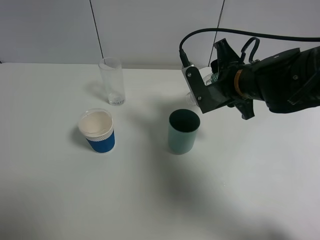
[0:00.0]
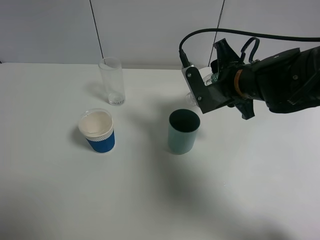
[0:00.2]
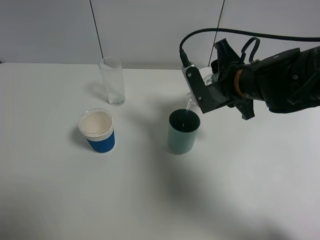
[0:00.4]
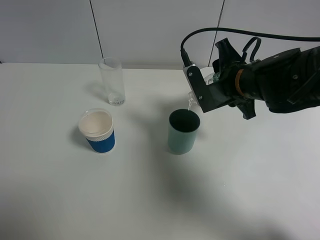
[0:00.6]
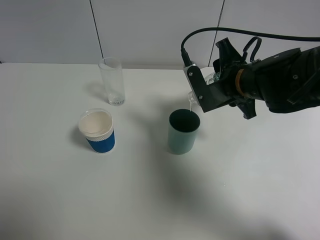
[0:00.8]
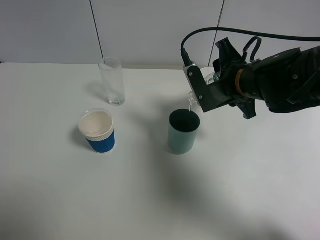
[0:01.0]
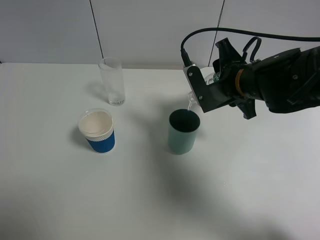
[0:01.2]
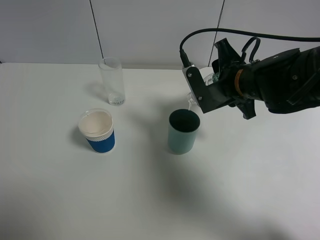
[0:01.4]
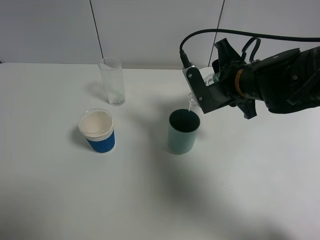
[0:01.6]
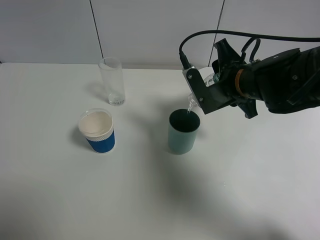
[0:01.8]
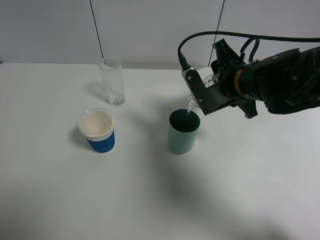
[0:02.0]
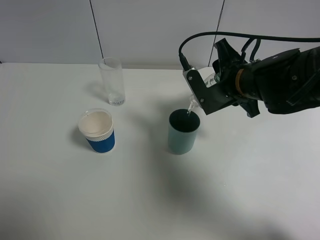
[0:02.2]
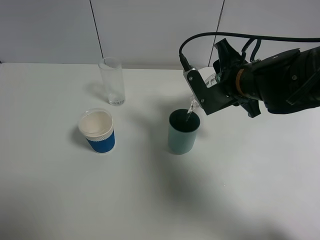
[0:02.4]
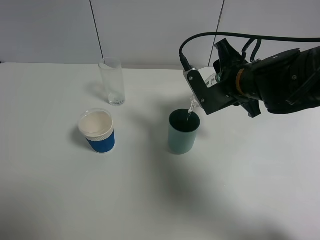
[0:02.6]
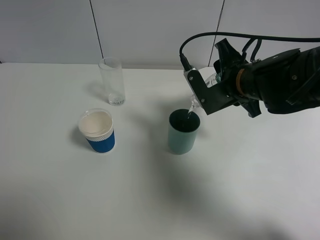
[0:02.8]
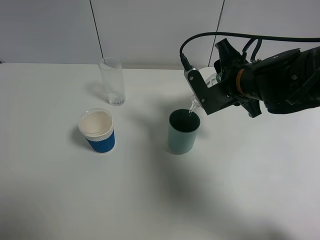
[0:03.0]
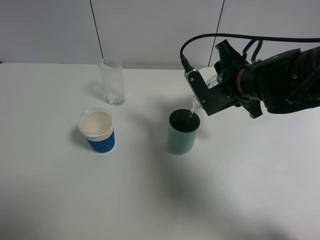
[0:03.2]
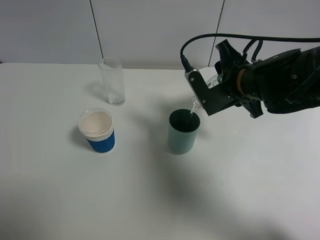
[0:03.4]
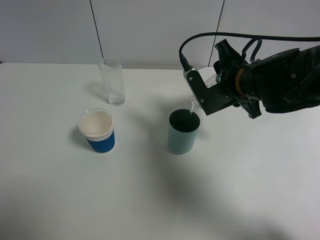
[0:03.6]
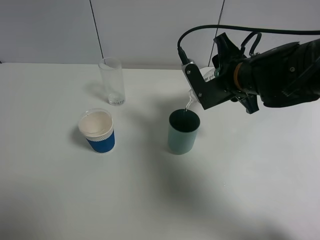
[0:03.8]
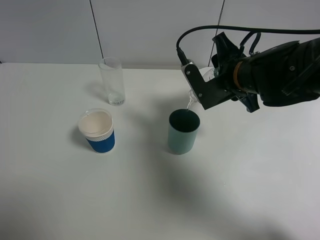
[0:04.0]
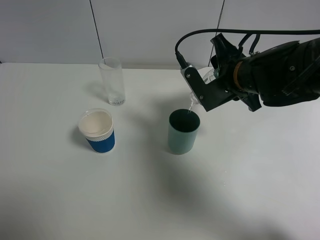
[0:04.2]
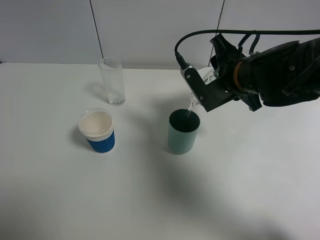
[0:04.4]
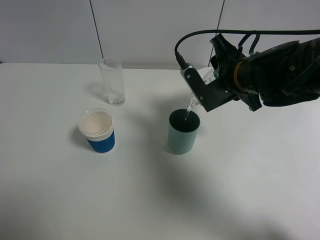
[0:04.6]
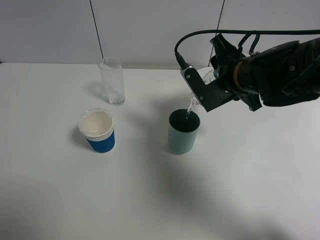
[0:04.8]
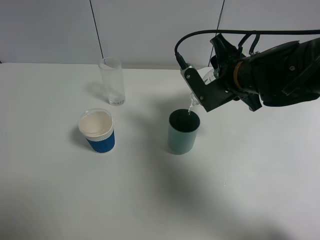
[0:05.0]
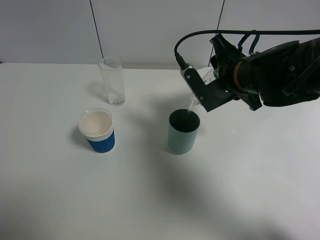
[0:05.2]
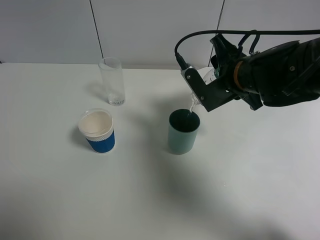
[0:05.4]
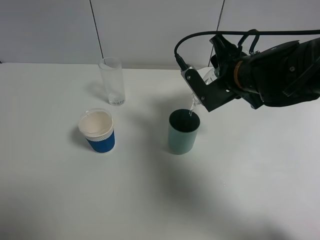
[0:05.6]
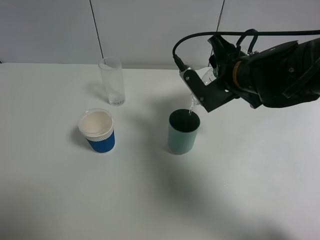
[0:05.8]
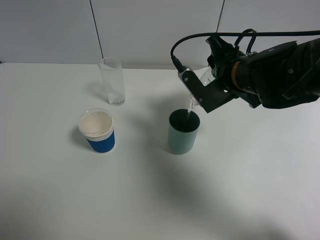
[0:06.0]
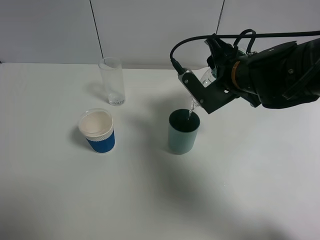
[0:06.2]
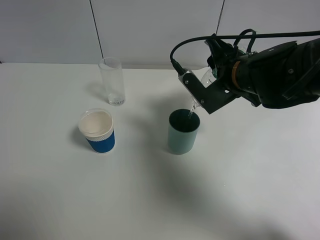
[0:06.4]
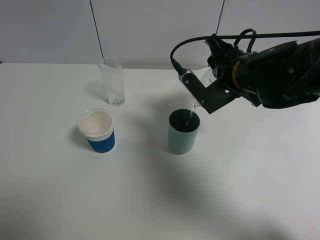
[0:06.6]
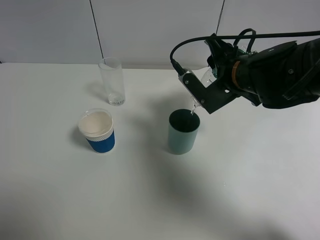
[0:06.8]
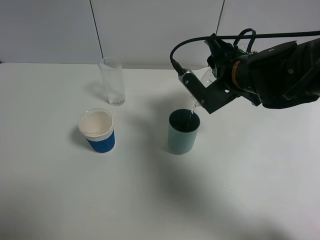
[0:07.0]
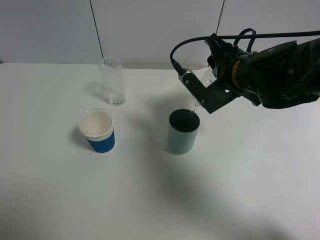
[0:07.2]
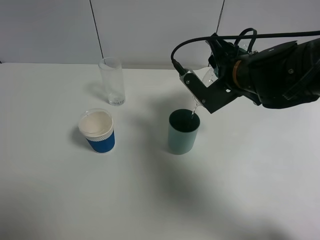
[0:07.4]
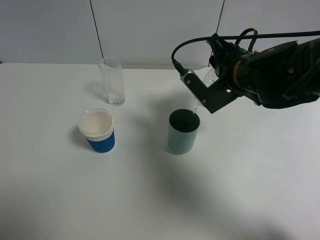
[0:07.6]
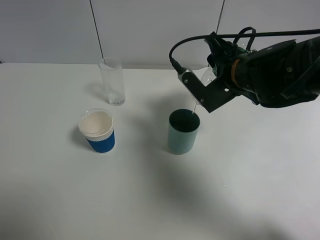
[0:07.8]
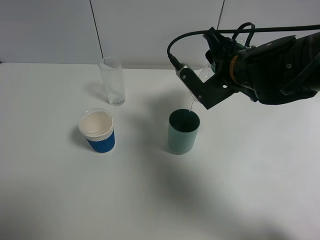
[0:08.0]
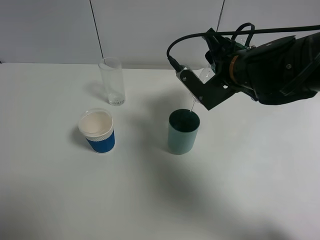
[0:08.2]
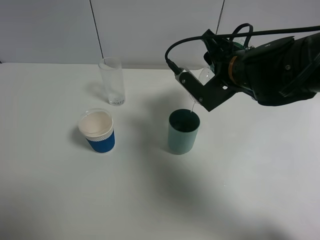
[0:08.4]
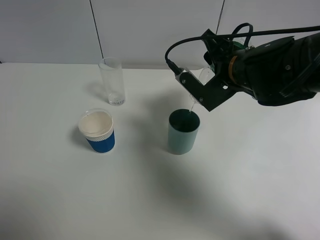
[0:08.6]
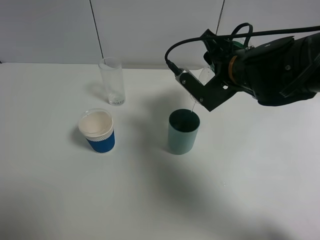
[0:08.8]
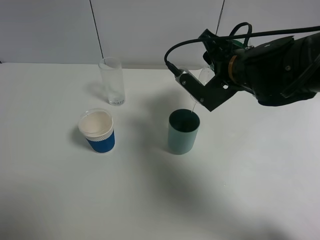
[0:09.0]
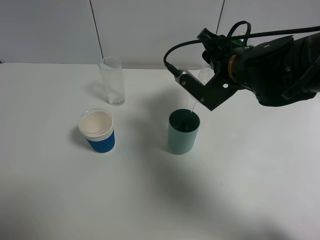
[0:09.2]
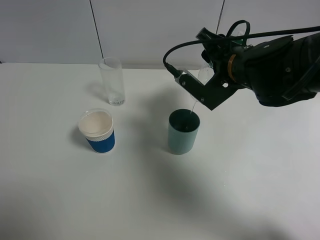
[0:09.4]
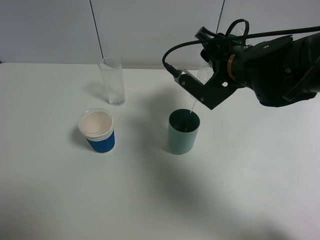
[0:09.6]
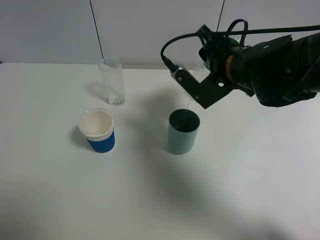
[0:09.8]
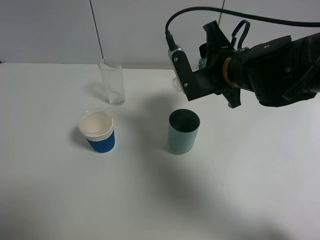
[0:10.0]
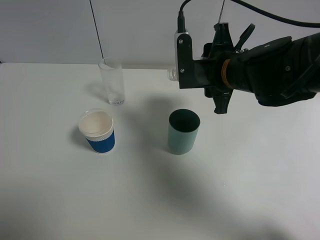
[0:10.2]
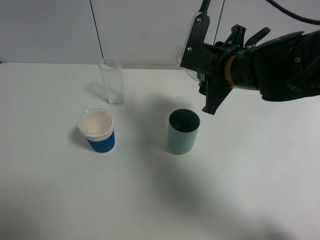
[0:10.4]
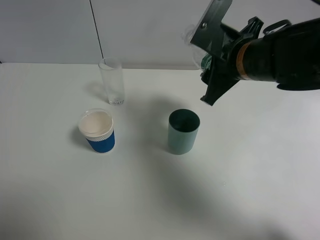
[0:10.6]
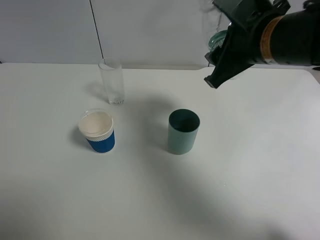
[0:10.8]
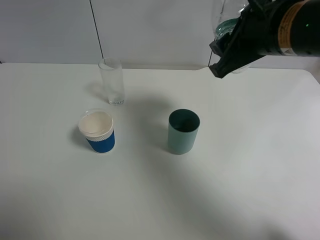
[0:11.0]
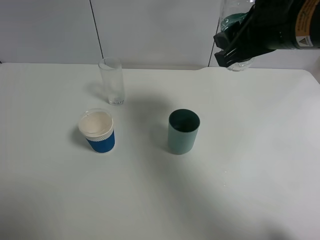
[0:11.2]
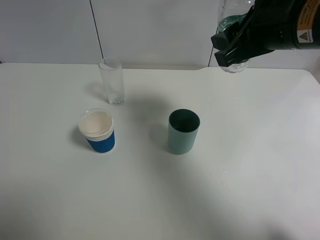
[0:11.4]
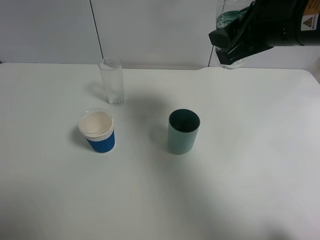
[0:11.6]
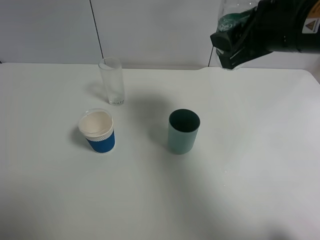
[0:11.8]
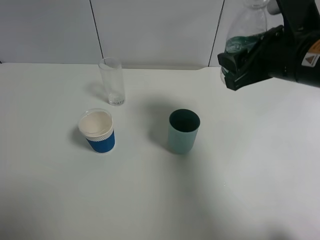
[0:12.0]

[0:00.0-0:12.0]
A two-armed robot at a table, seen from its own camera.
Task of the whole recording: use a gripper to hold the bottle of the drink and pour it into a random cup.
Step, 0:00.0 to 0:10.2: Pour the mineral water into the cyan cup with the right gripper.
0:00.0 to 0:01.6: Both grippers stay about where they are.
0:01.6 to 0:03.0: Both grippers stay about where they are.
0:03.0 to 0:04.4: Both grippers stay about where they are.
0:04.4 to 0:06.0: Both grippers stay put.
0:06.0 to 0:07.6: The two grippers keep their place.
0:07.6 to 0:09.0: The grippers make only small movements.
0:10.4 to 0:12.0: The right gripper shifts approximately 5 cm to the right.

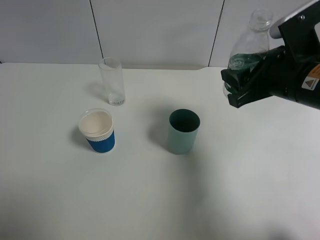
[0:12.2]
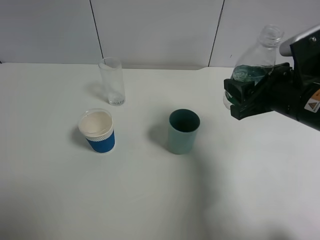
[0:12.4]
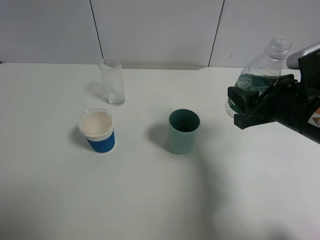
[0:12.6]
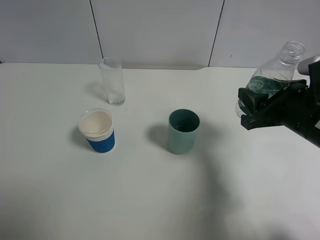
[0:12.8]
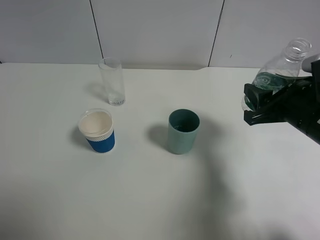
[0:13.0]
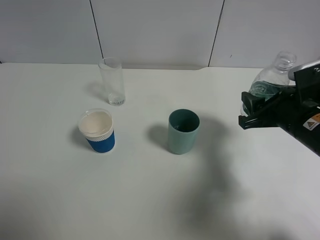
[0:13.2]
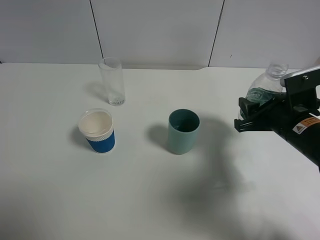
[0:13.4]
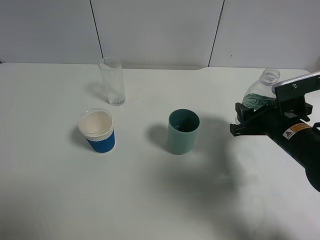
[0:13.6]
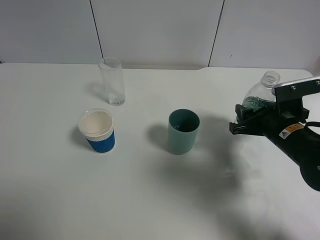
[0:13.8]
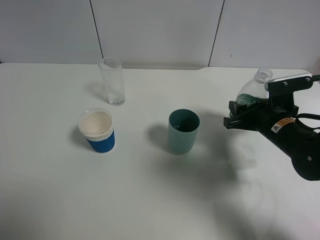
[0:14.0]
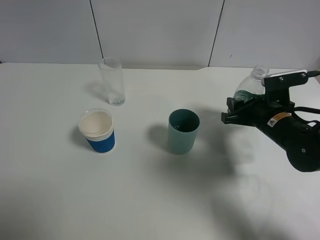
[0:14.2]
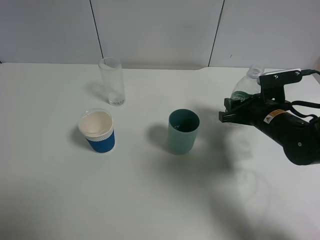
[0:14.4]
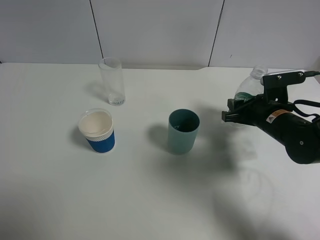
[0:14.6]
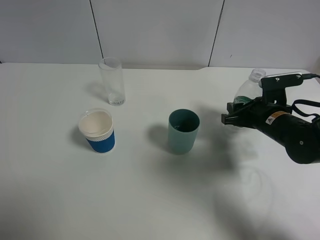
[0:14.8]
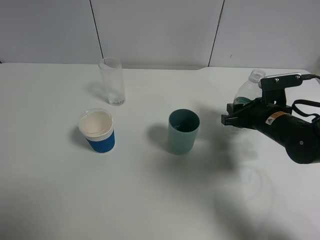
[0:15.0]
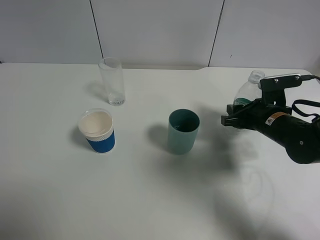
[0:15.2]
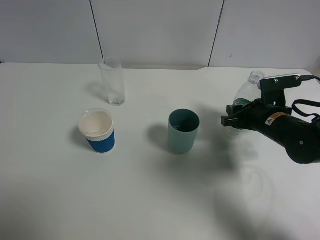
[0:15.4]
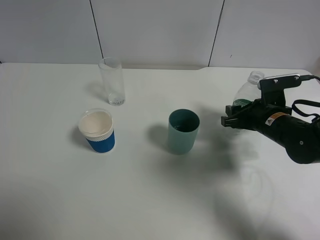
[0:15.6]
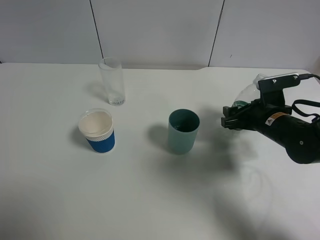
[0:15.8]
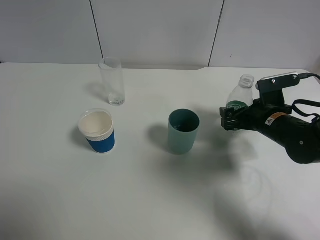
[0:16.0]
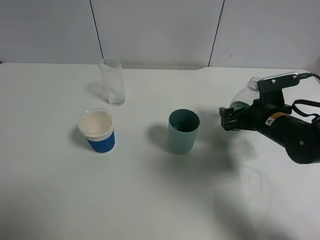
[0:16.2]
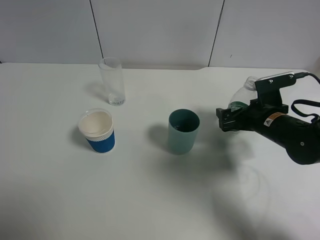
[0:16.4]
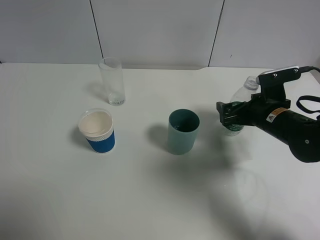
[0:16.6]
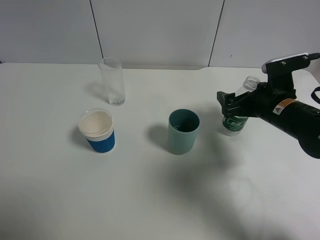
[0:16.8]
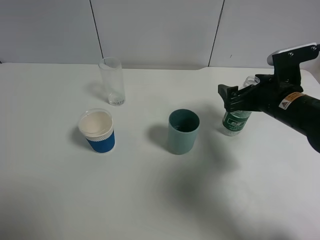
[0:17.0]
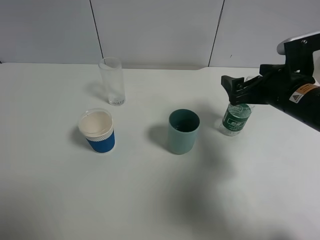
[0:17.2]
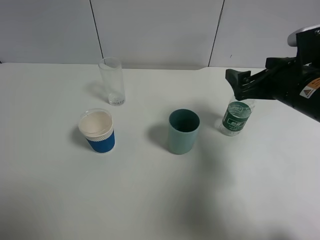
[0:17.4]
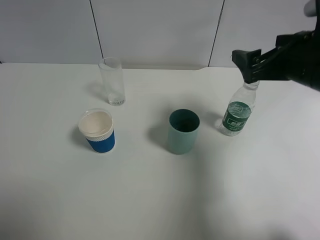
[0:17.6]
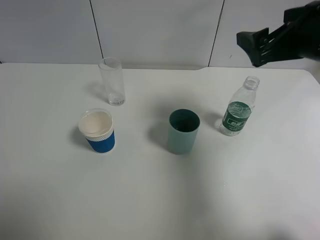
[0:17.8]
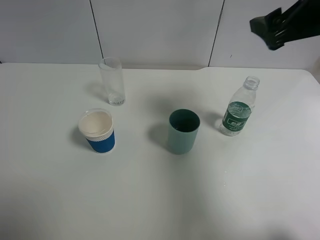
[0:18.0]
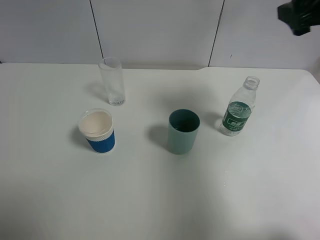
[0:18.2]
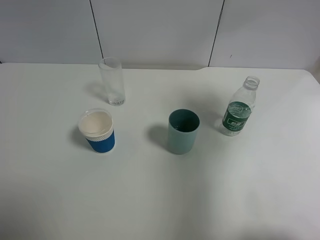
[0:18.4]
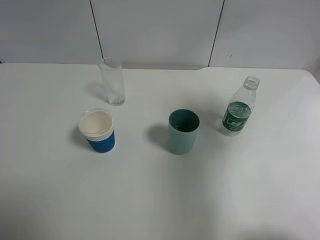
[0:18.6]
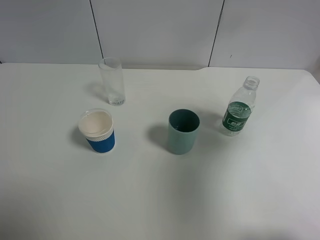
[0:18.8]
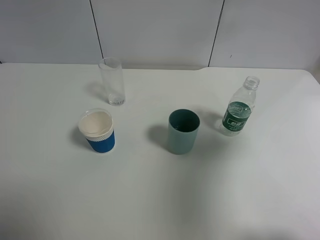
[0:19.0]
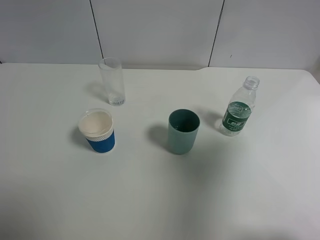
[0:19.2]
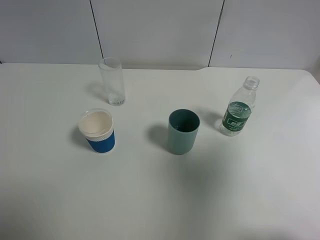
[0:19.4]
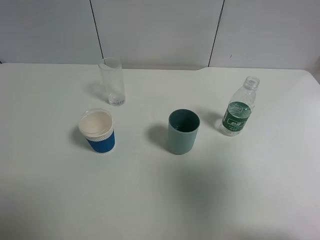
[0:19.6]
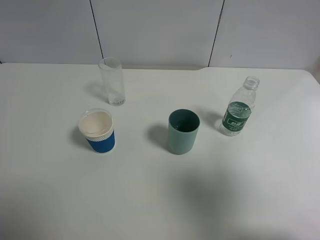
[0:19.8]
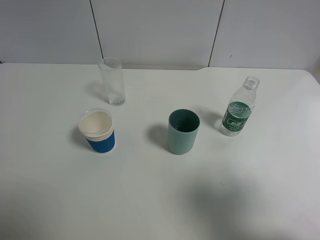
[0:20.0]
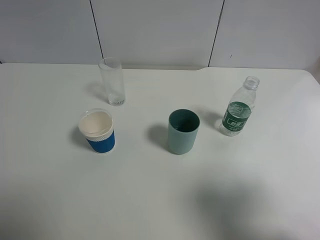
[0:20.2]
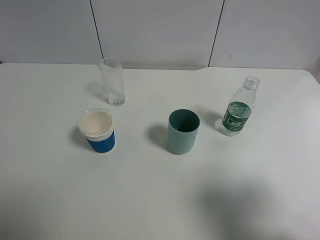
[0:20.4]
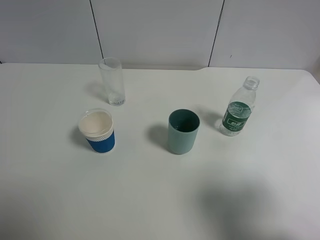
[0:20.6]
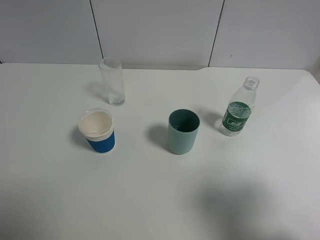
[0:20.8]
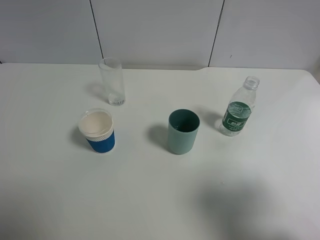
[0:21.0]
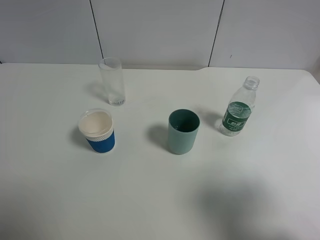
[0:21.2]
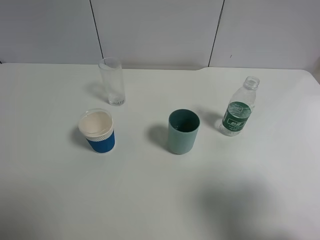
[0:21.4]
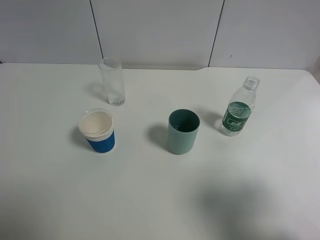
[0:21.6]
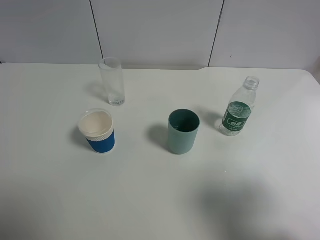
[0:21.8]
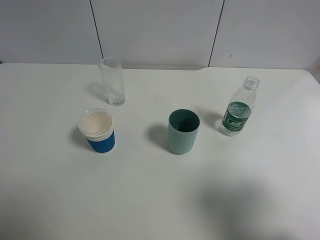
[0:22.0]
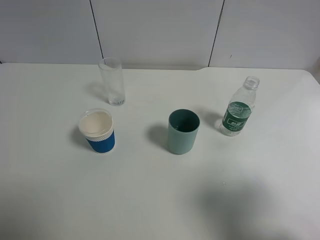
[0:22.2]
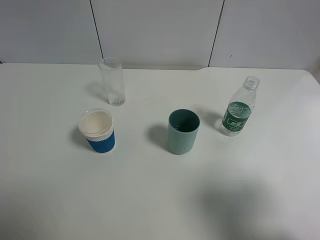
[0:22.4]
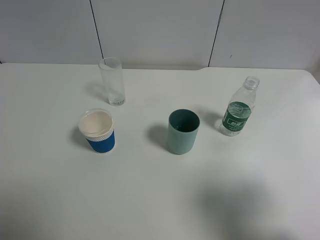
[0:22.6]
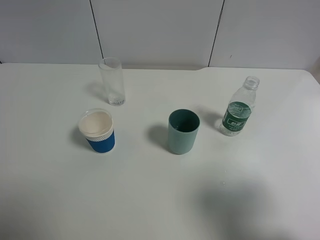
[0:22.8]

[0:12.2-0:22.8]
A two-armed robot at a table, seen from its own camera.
Task of the whole recording: use a gripper to hold the bottle of the drink and pour it into a random cup.
Step, 0:12.2 to 0:17.0: Place the mineral water bottle on the table with the right gripper.
0:12.2 to 0:13.8: The right gripper goes some 10 cm downward.
0:13.8 to 0:15.2: The grippers move only a little.
0:15.2 to 0:16.8: The right gripper opens its fingers.
0:16.8 to 0:18.2: The right gripper travels upward by approximately 20 cm.
0:18.2 to 0:19.8: The right gripper travels backward by some 25 cm.
0:19.8 to 0:21.2: The right gripper shifts approximately 5 cm downward.
0:21.2 to 0:22.8: Both grippers stay put.
